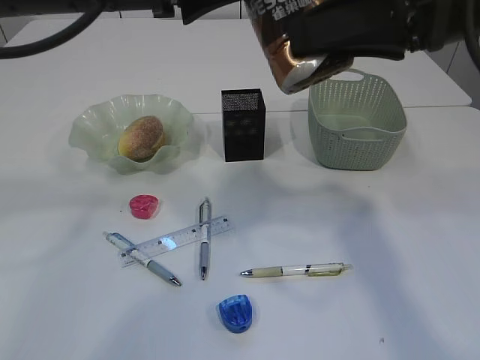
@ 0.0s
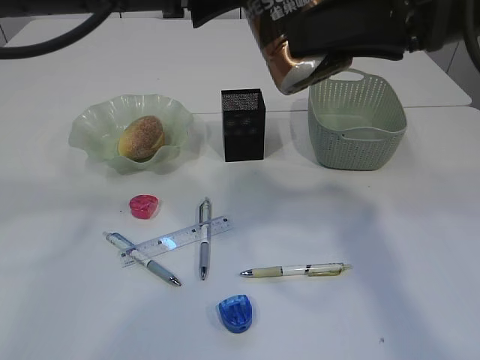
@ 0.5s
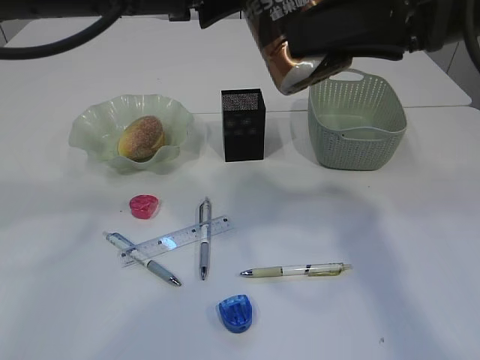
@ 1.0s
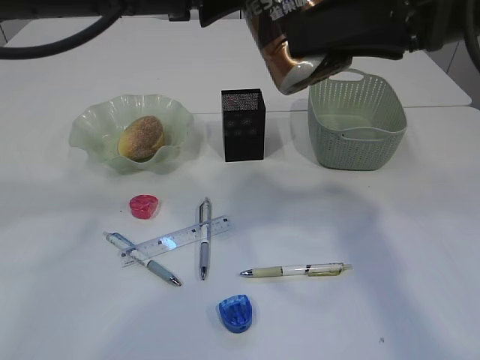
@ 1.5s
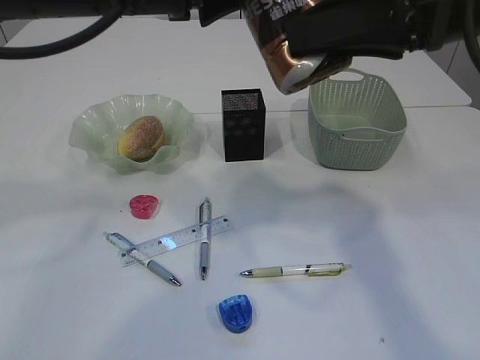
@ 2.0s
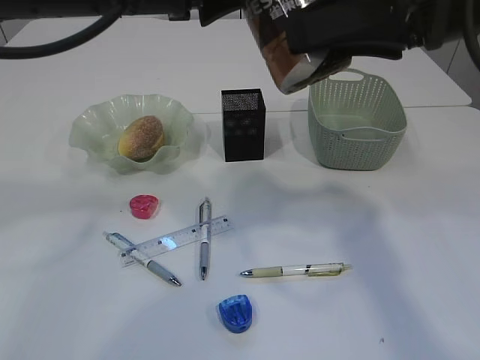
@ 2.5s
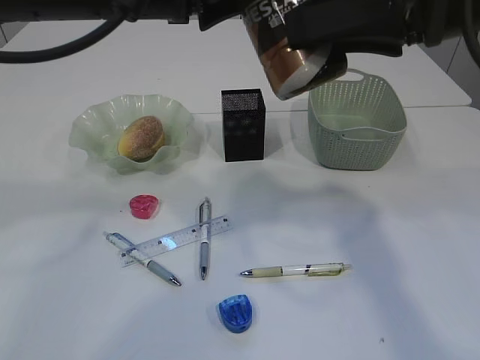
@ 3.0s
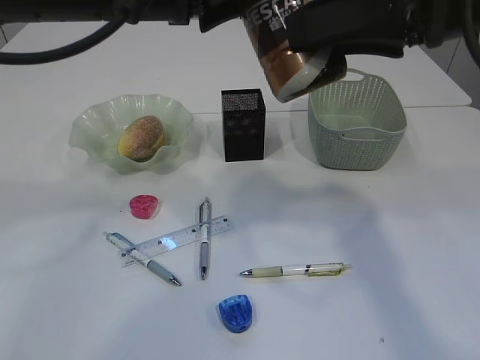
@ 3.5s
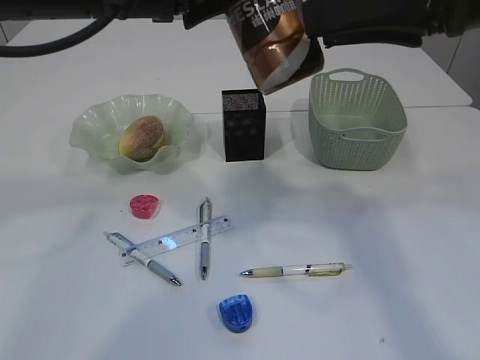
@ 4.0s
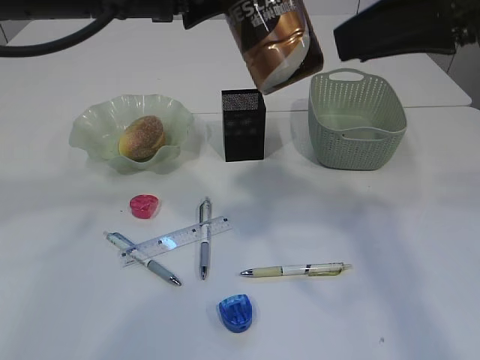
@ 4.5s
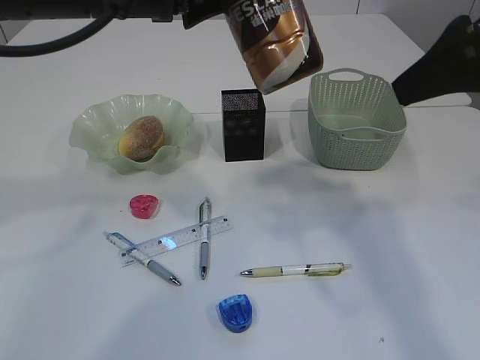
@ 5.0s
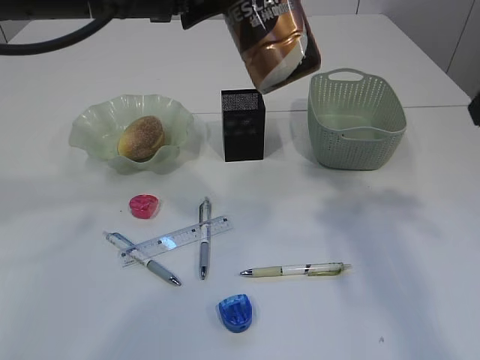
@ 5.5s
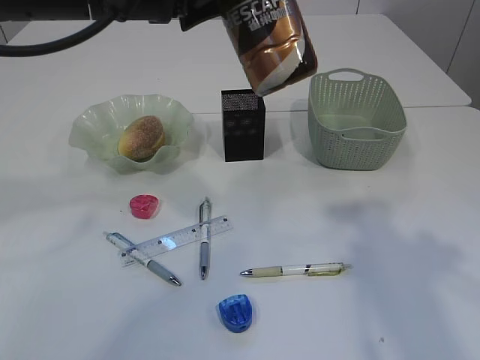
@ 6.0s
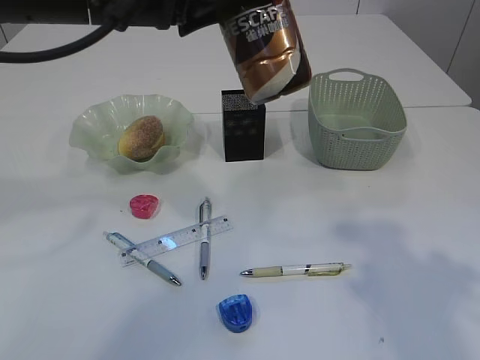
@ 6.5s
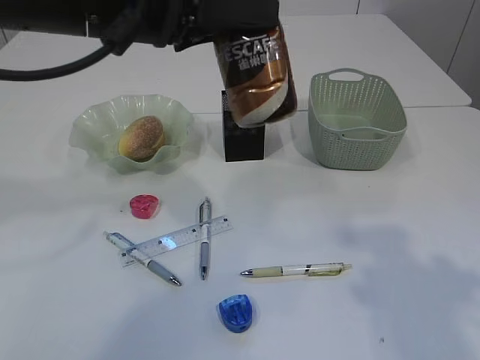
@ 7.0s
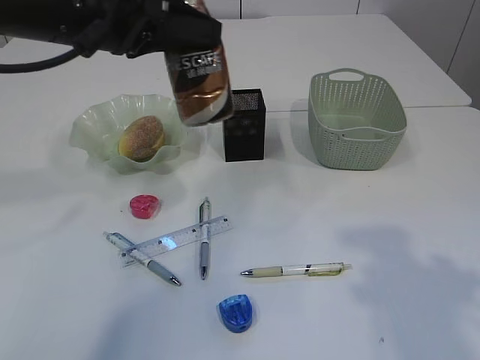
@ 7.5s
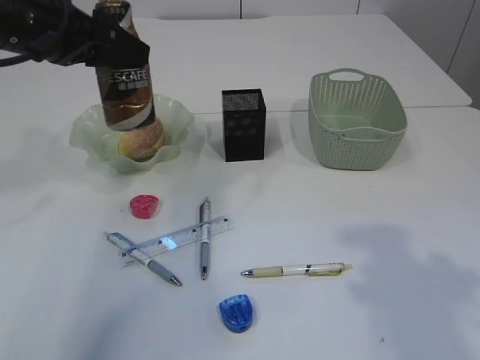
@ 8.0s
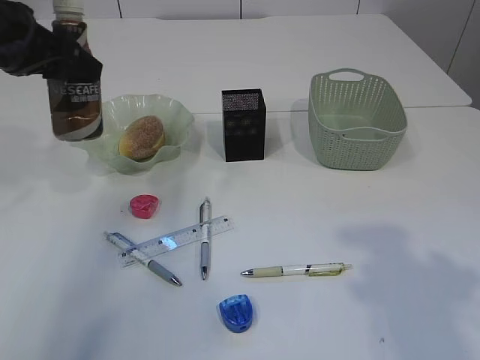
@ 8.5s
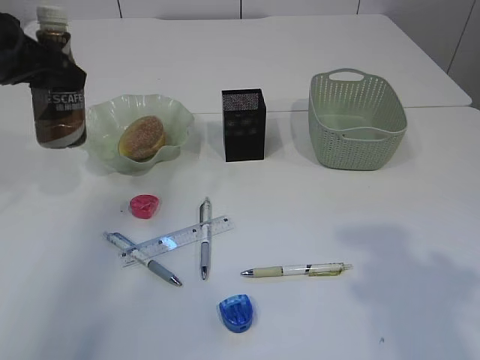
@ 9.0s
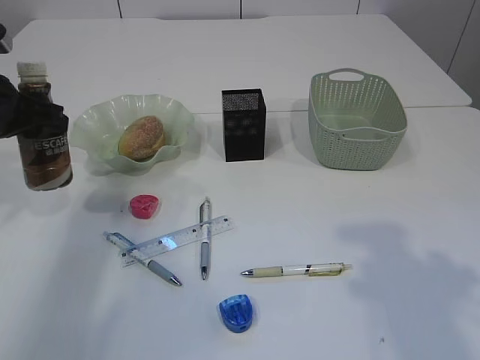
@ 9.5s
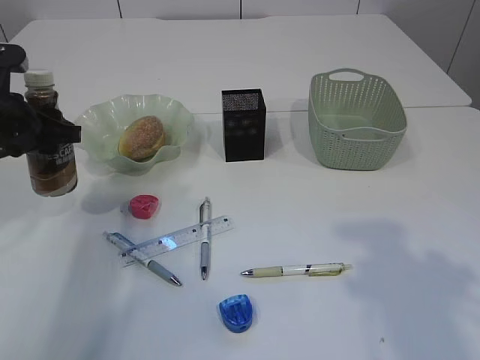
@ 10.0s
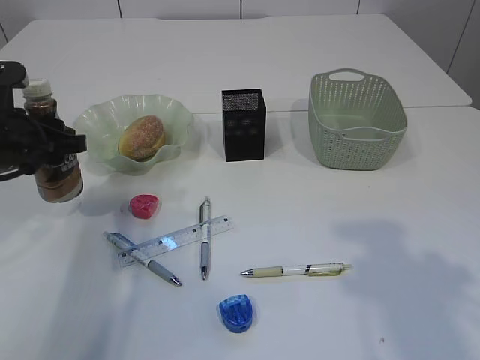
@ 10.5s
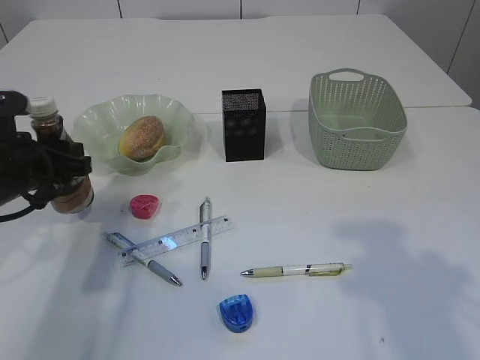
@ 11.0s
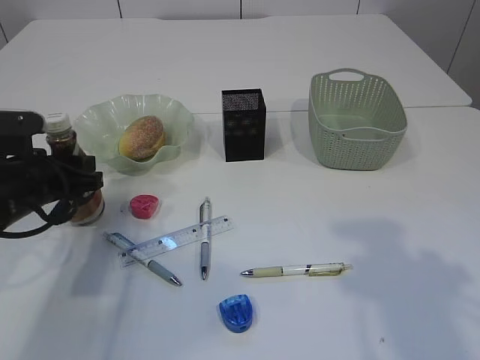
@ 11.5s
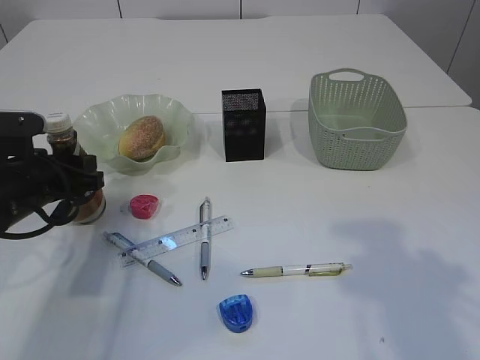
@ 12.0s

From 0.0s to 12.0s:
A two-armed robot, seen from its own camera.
Step, from 0.0s to 4.5s: transfer the bottle to the left arm.
From 0.0s to 4.0s: The grippers make only small movements.
From 4.0s to 6.0s: The right gripper goes approximately 15 cm to the right and backward.
From 6.0s to 8.0s: The left gripper goes approximately 10 cm to the left and forward.
From 8.0s to 10.0s: The left gripper moves downward and to the left, roughly 10 cm.
From 10.0s to 12.0s: The left gripper travels downward by about 10 cm.

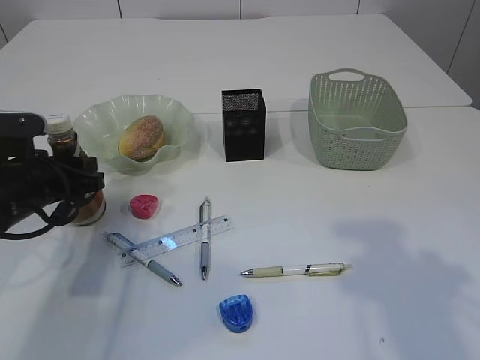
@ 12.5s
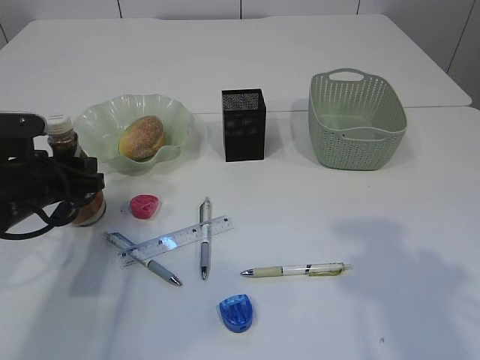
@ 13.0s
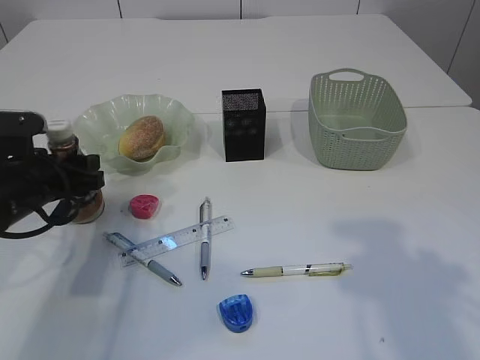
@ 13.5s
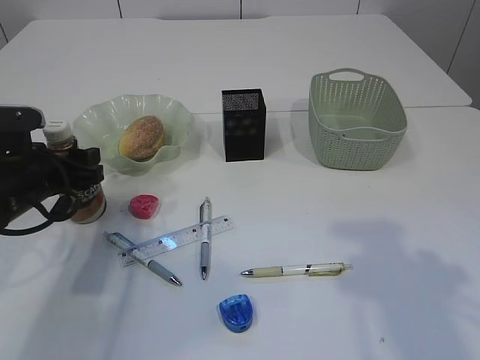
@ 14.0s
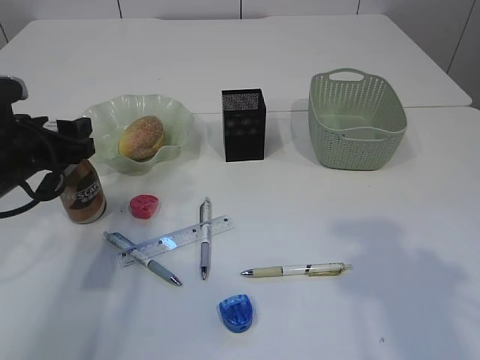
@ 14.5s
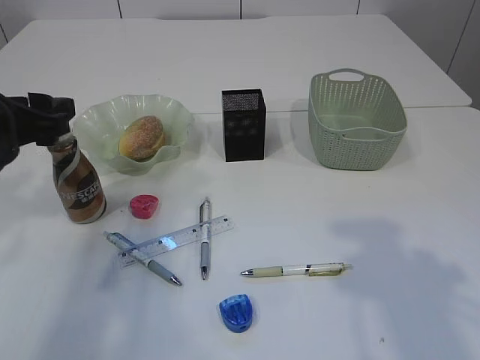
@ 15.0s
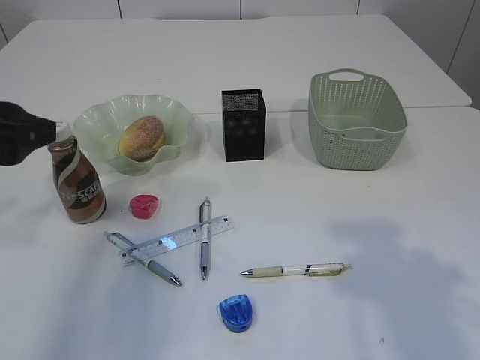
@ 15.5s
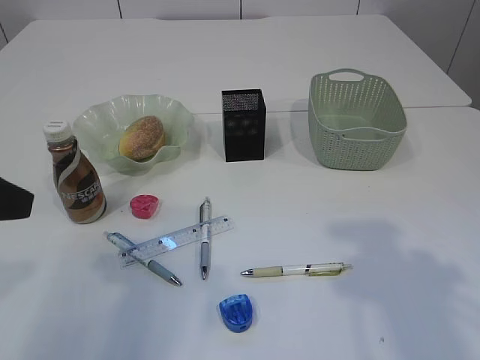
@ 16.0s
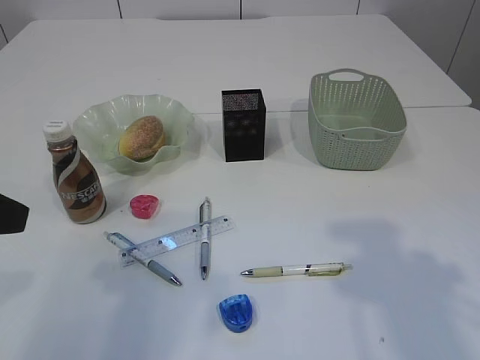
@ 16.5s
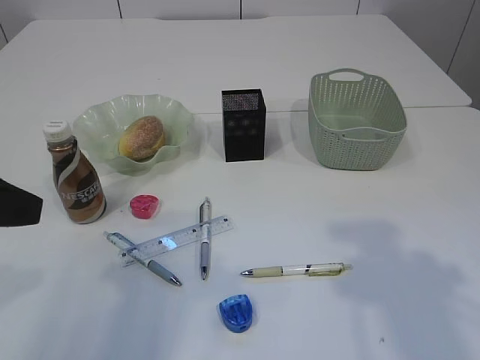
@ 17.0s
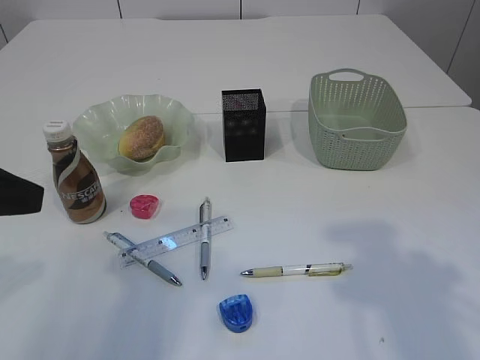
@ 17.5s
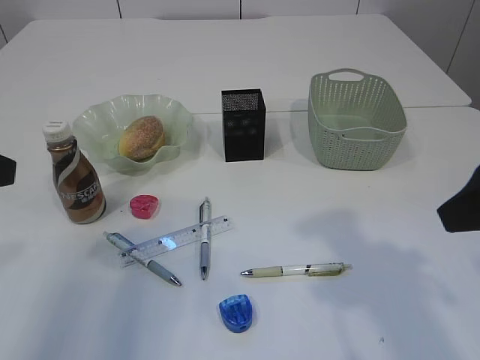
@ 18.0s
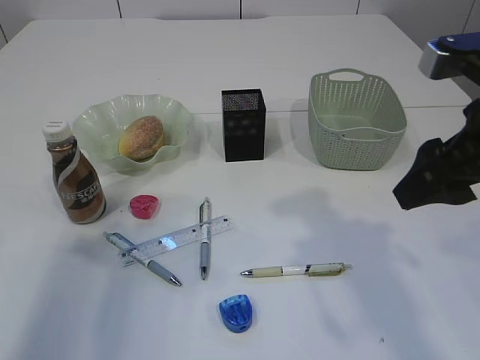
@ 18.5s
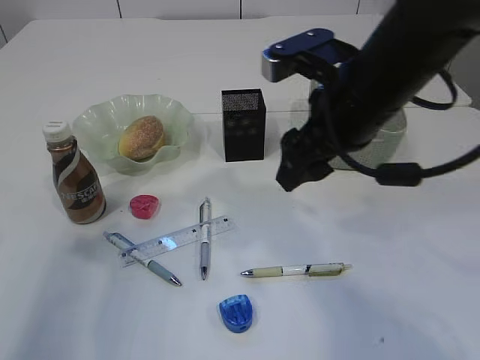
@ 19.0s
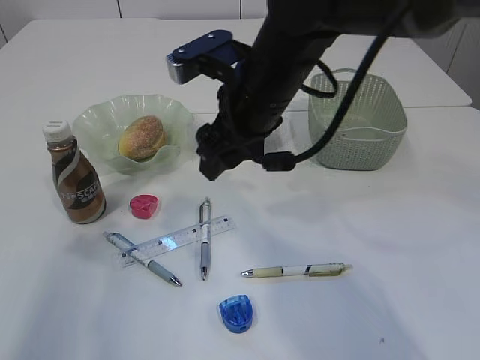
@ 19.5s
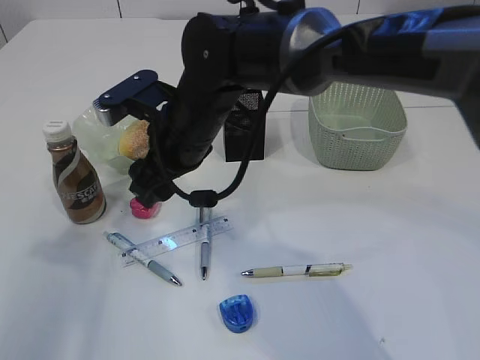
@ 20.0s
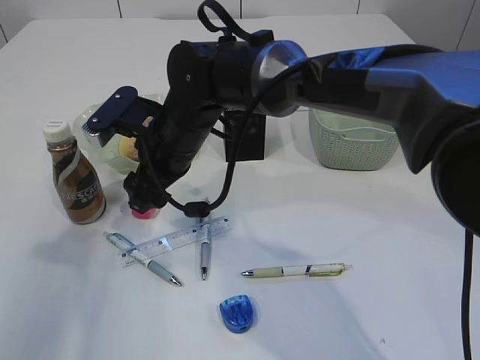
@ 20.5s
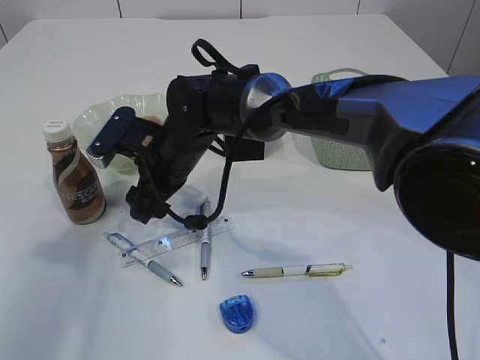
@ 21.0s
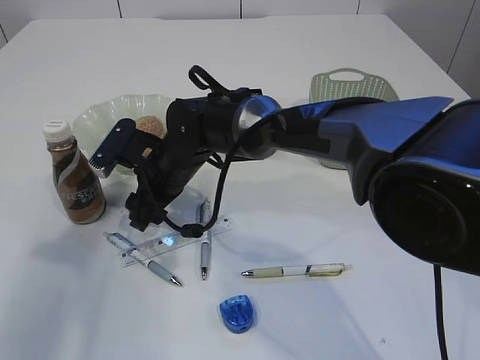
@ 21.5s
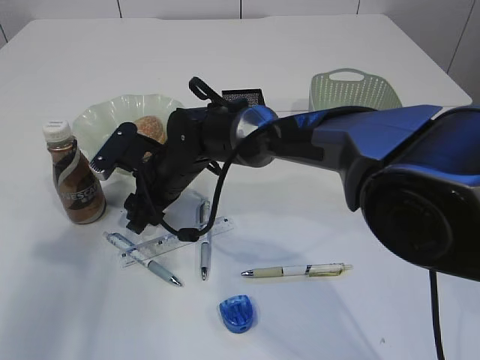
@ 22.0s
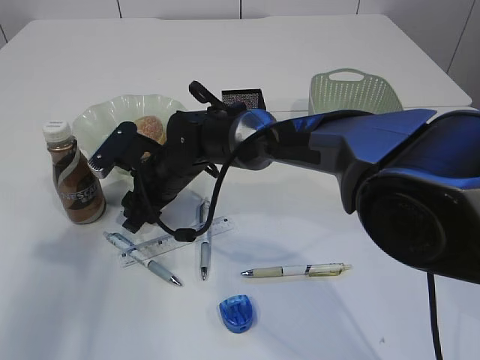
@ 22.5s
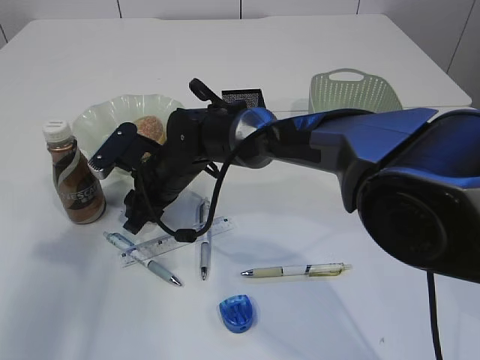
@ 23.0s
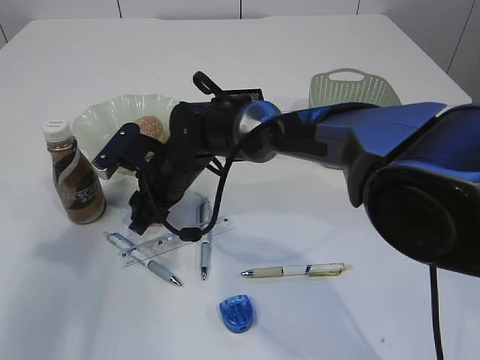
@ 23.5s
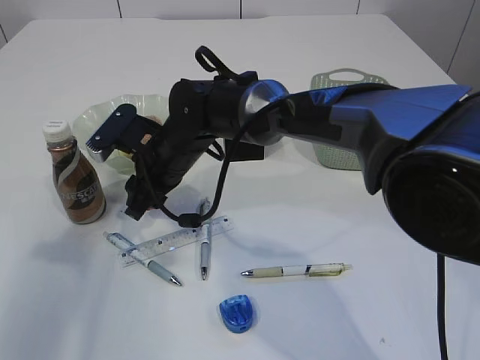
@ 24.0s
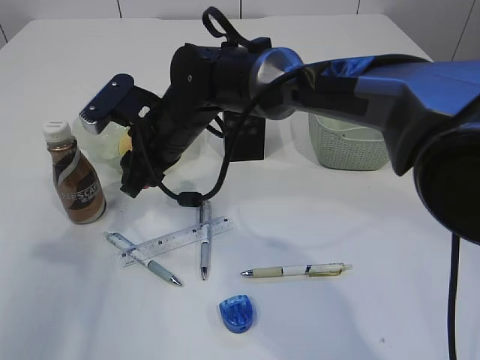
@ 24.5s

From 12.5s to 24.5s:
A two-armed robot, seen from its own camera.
Step, from 12.5s to 15.0s: Place the bottle.
Step, from 15.5s to 24.5s: Pick up the red pencil sharpener.
From 12.5s to 14.5s: The grippers make only small movements.
From 14.5s to 16.5s: The left gripper travels backward and upward by approximately 20 cm.
From 16.5s to 18.5s: The right gripper goes roughly 10 cm forward.
From 18.5s to 20.5s: The right gripper shifts about 30 cm to the left and forward.
From 20.5s to 22.5s: The right gripper travels downward by approximately 10 cm.
From 22.5s to 24.5s: The right gripper goes approximately 10 cm upward.

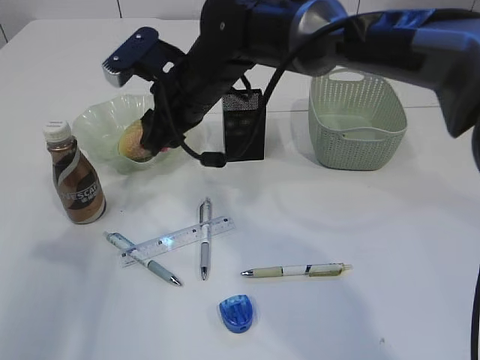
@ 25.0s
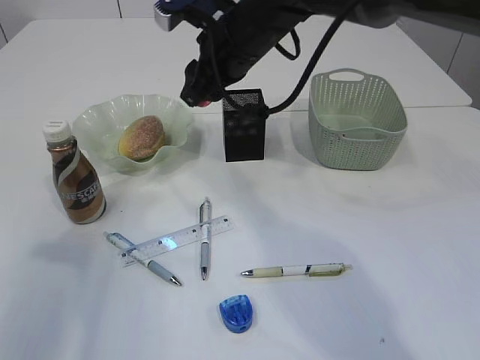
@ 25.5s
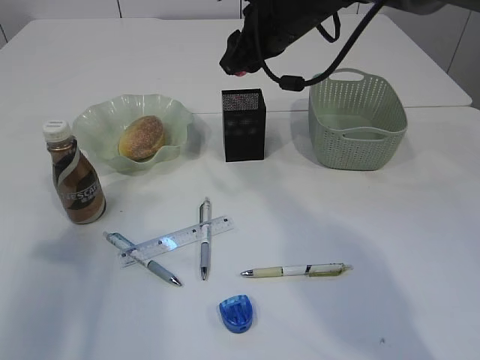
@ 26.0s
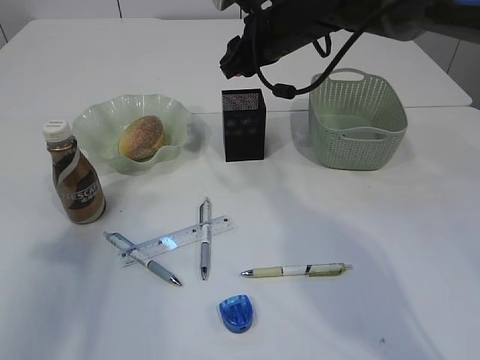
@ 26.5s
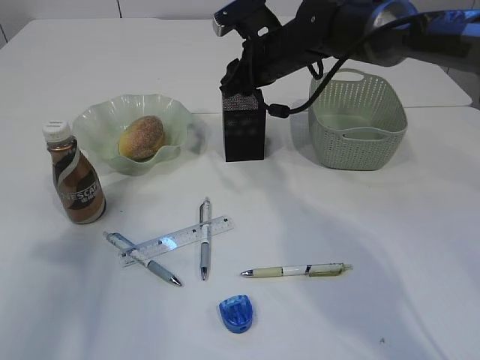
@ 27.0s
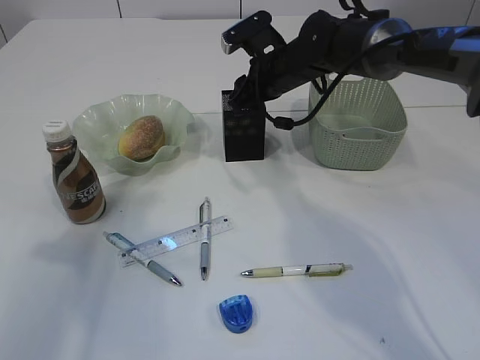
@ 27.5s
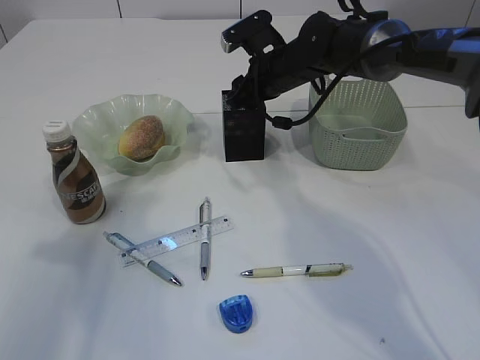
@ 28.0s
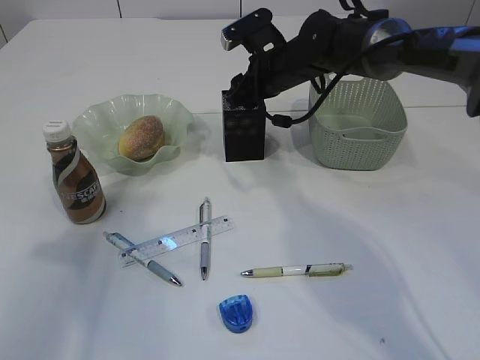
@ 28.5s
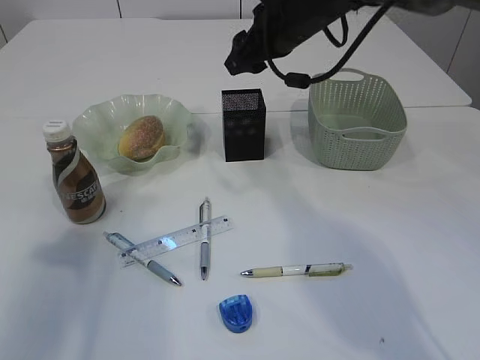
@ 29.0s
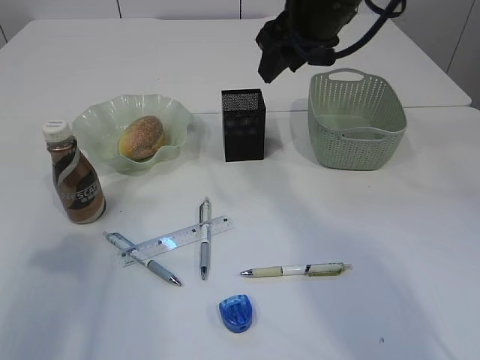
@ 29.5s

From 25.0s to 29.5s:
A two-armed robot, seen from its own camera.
Step, from 25.0s to 29.0s: Place the red pencil sharpener into the pen holder.
From 25.0s to 27.0s: The right gripper travels to the right and forward by approximately 15 cm.
From 27.0s to 29.5s: The right gripper moves upward and backward, approximately 15 cm.
